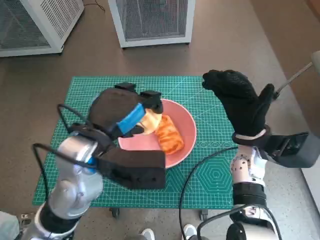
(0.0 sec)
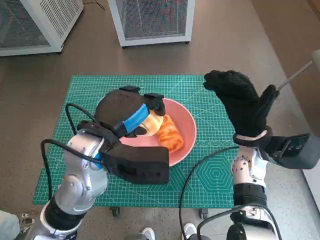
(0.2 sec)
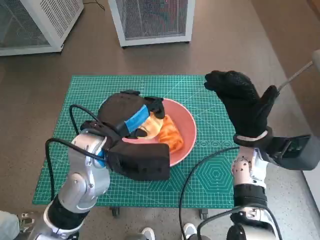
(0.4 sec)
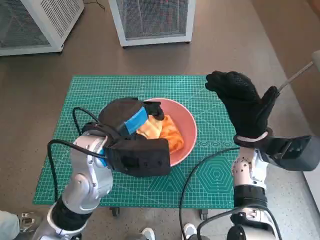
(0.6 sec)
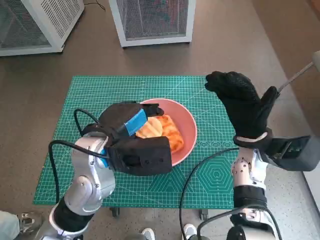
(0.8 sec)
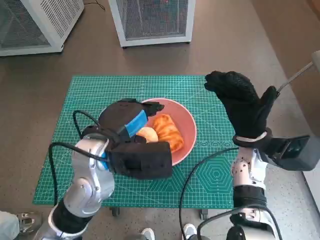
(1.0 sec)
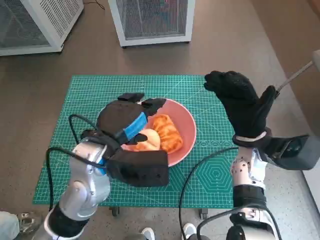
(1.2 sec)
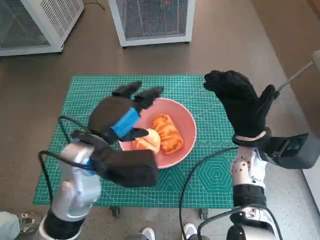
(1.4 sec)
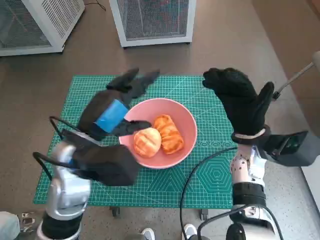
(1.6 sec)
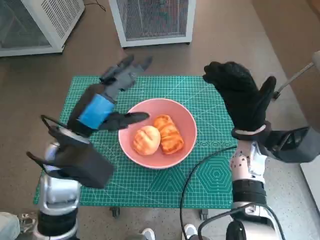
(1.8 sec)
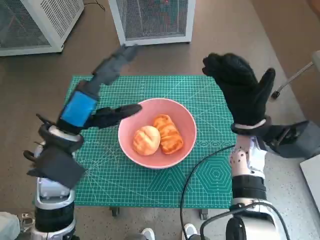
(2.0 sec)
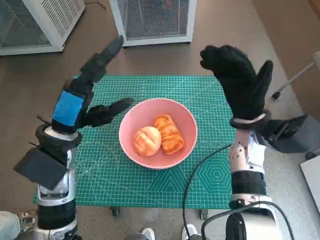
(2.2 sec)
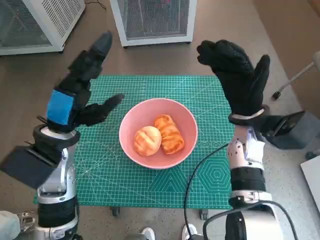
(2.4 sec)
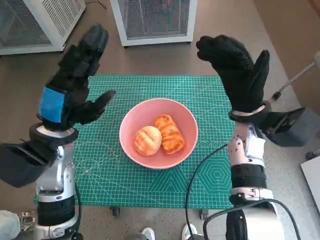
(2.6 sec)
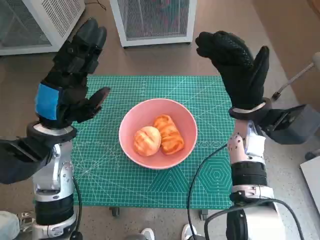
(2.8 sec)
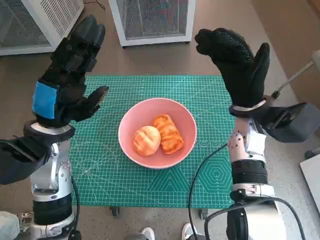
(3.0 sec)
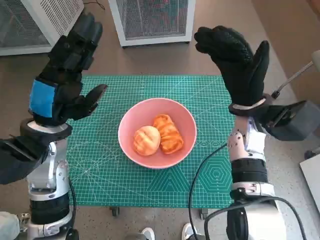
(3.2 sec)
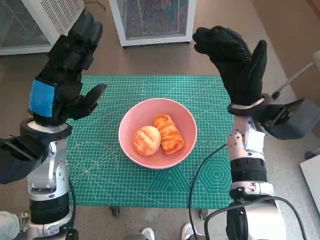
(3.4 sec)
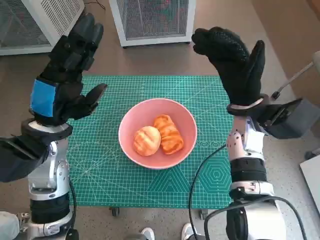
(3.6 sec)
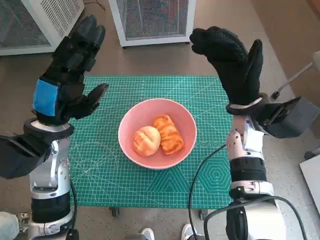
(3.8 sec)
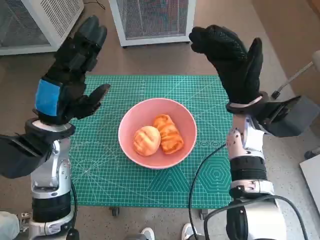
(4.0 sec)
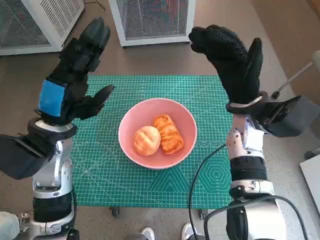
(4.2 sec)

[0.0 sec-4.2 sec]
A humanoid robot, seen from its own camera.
Task of the whole recording: Push the bowl into the center of the table and put the bread into the bowl.
0.0 sec to 1.4 sec: The hands move only a little.
1.4 sec to 2.8 sec: The right hand shifts roughly 5 cm upward. Meanwhile the left hand heads to the left, covering roughly 5 cm.
2.8 sec to 4.2 sec: Both hands stay put.
